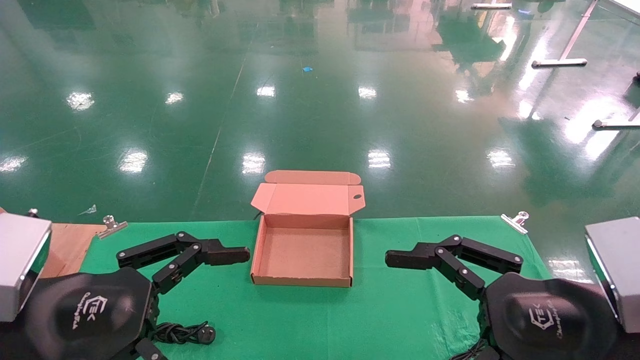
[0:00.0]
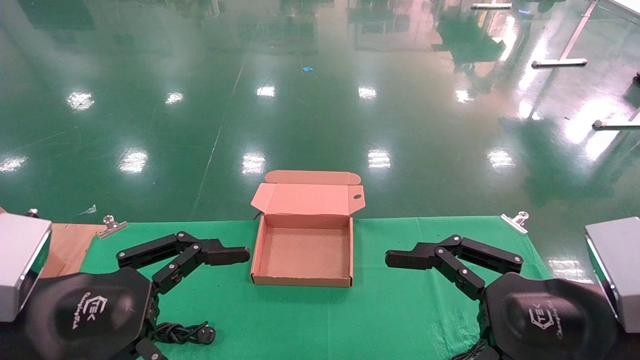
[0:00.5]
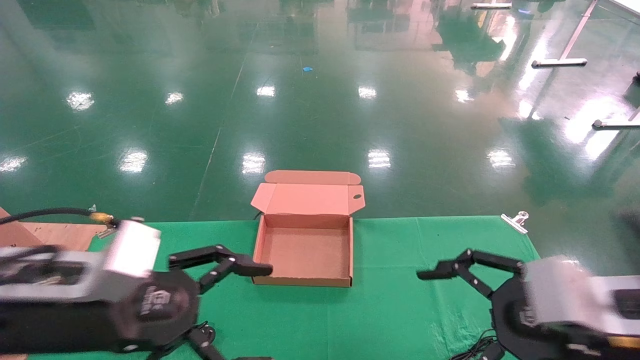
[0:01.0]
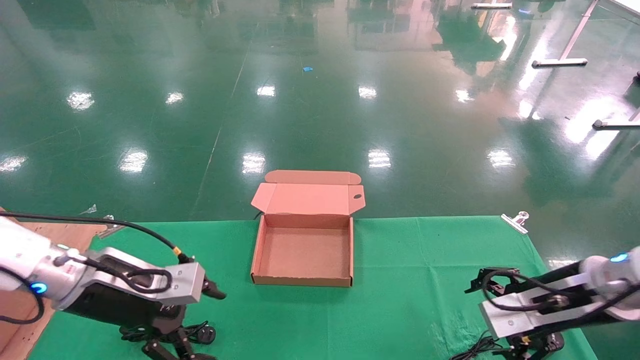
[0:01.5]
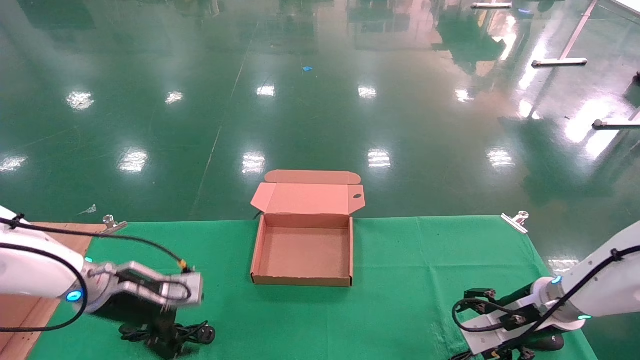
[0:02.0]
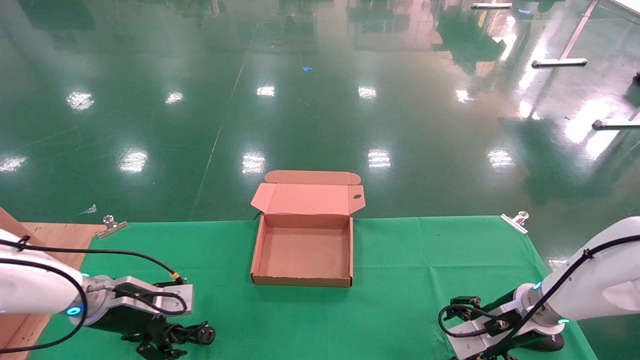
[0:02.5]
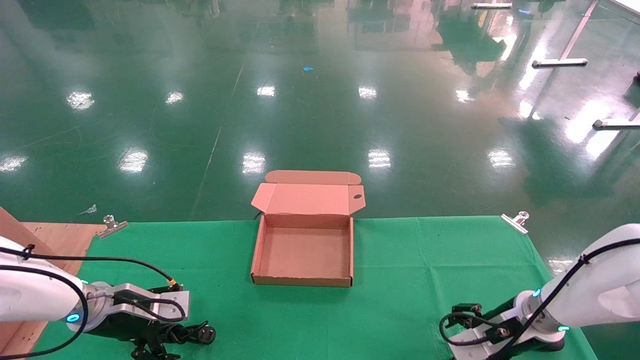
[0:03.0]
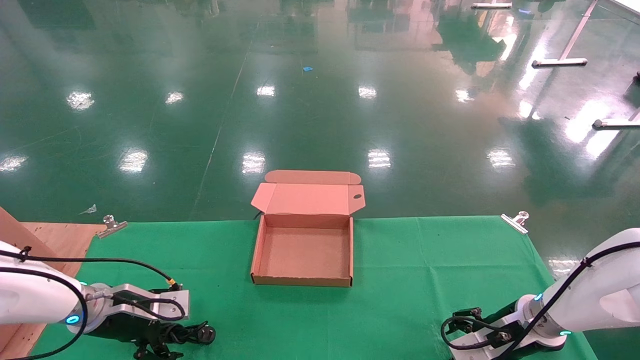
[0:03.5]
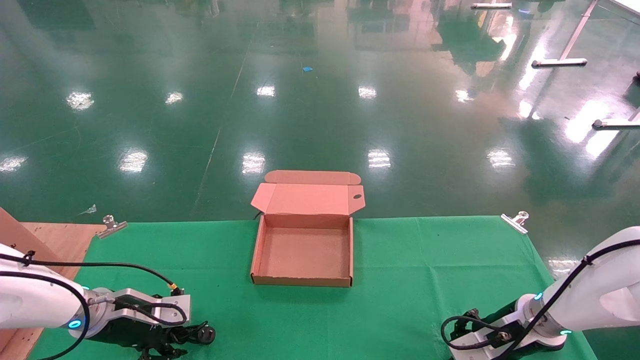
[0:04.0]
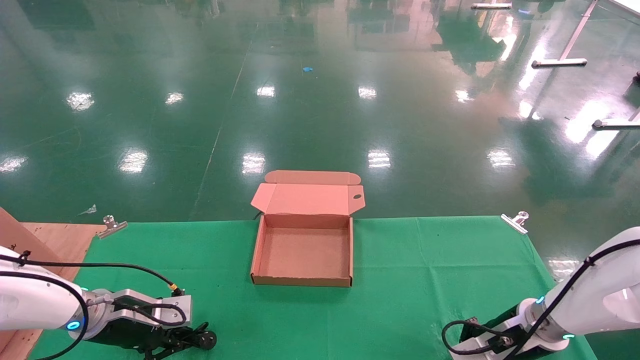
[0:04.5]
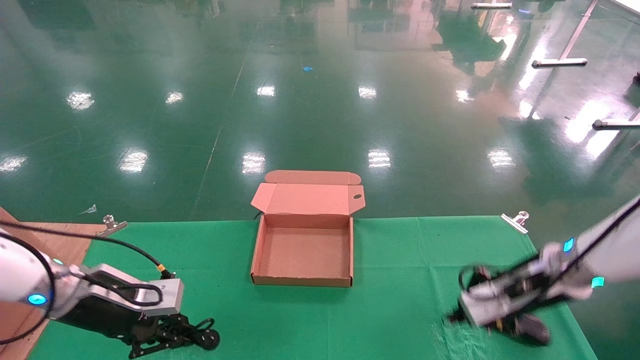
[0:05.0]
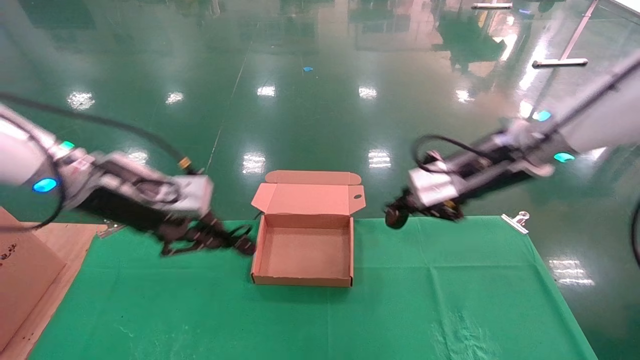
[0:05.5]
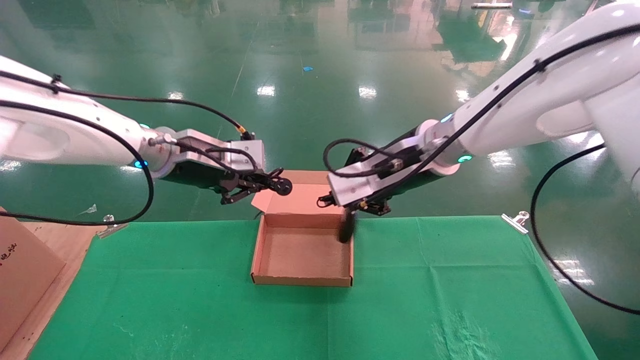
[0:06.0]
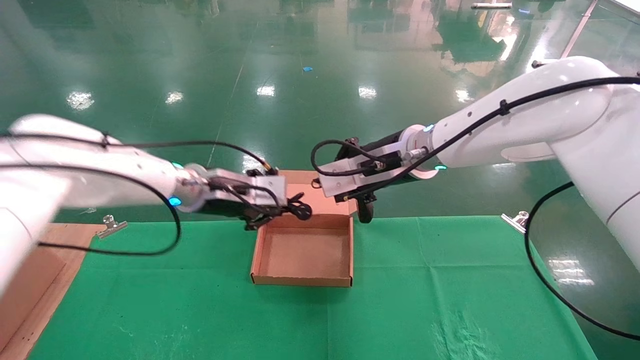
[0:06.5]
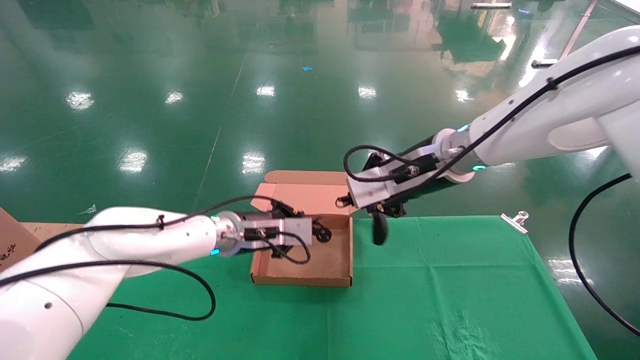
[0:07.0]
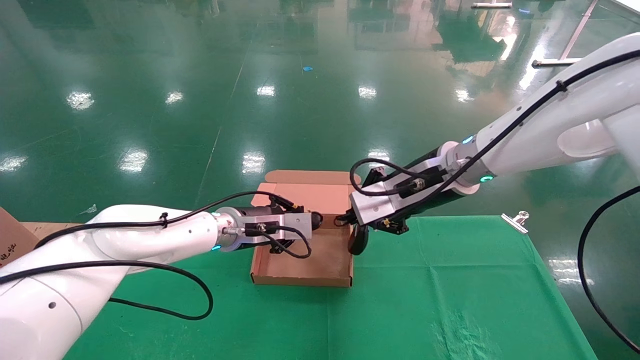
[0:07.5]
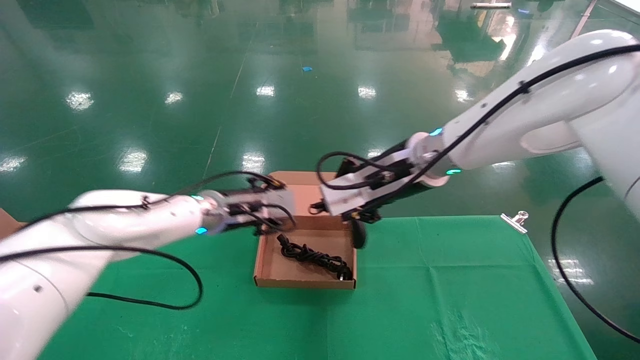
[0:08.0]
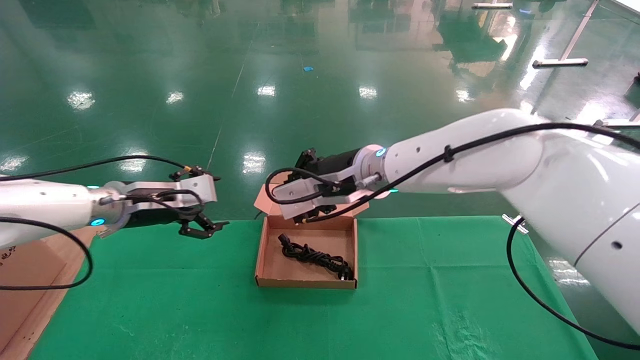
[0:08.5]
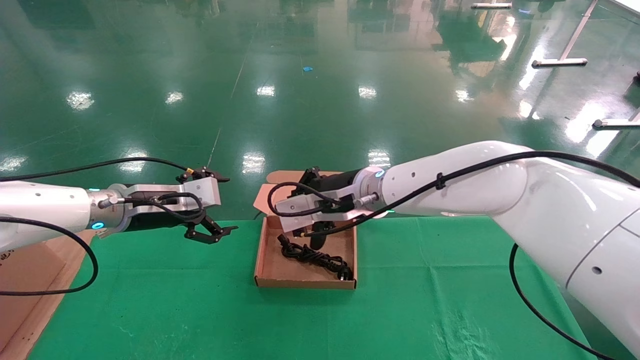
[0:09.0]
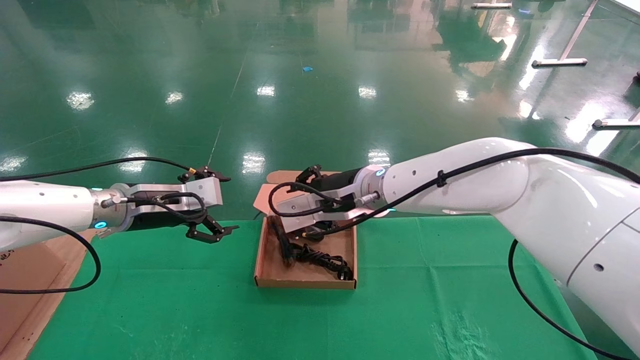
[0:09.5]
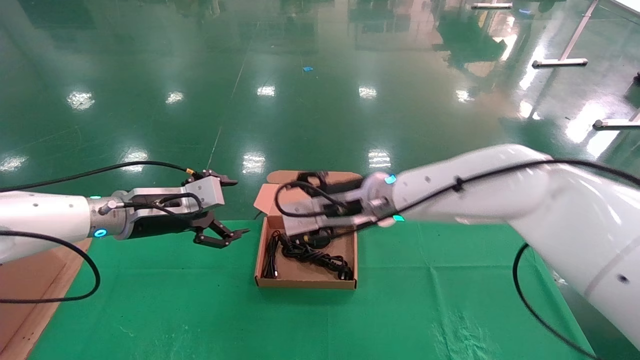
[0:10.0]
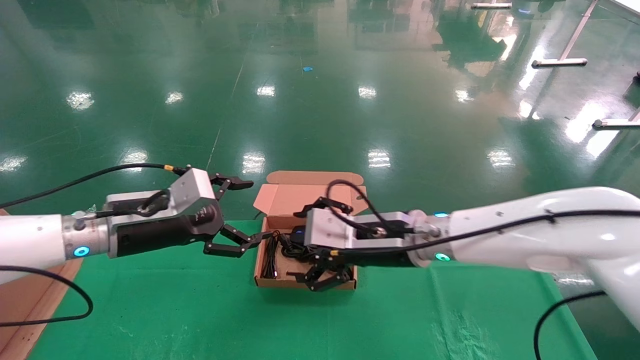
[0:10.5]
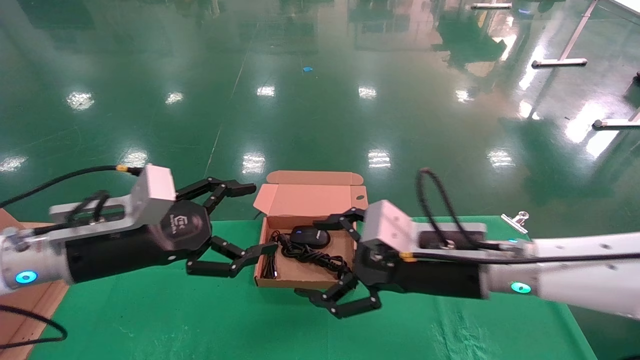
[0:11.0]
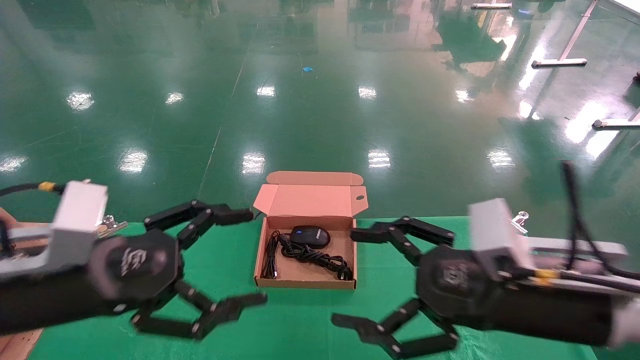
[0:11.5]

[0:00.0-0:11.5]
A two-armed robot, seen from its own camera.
Step, 1.5 to 4.5 s: Grab and lift both the mouse and power cord from the accessory packaging area at the same time.
Step, 5.0 to 10.0 s: Place the mouse and power cord into the box.
0.0 to 2.0 s: The two grippers go roughly 25 cm forward and downward.
2.0 to 4.0 s: The right gripper closes up. Meanwhile the left gripper shifts approximately 5 cm downward, and closes its fingers.
4.0 to 6.0 s: The right gripper is displaced upward and to the left by roughly 30 cm, and closes its fingers, while the left gripper goes approximately 25 cm upward and to the right, and closes.
6.0 to 7.5 s: The left gripper goes approximately 15 cm downward and to the right.
7.5 to 9.5 s: Both grippers move to the left, about 10 cm. The left gripper opens its fingers.
9.5 to 11.5 s: The right gripper goes approximately 25 cm backward and to the right, and opens up; the left gripper travels backward by roughly 20 cm.

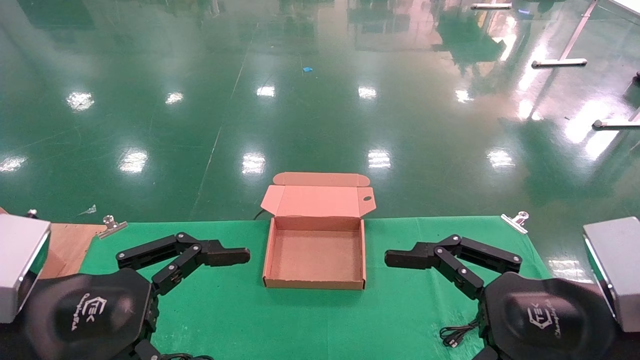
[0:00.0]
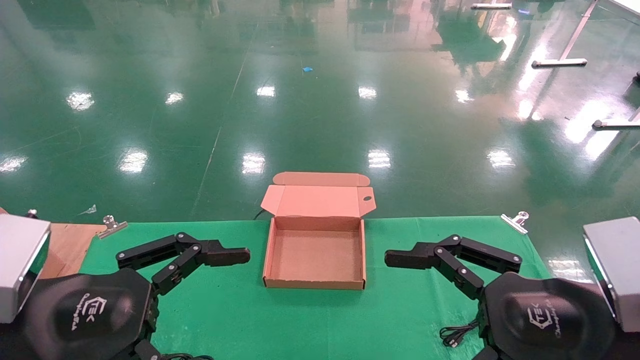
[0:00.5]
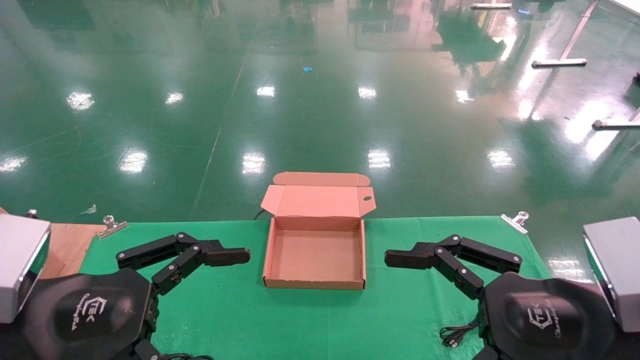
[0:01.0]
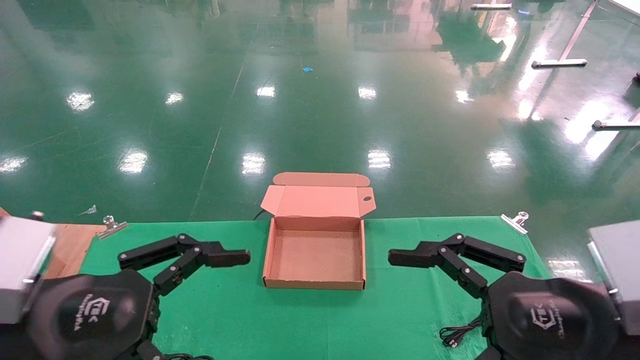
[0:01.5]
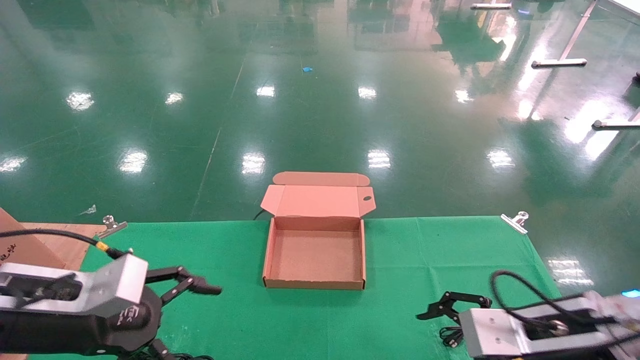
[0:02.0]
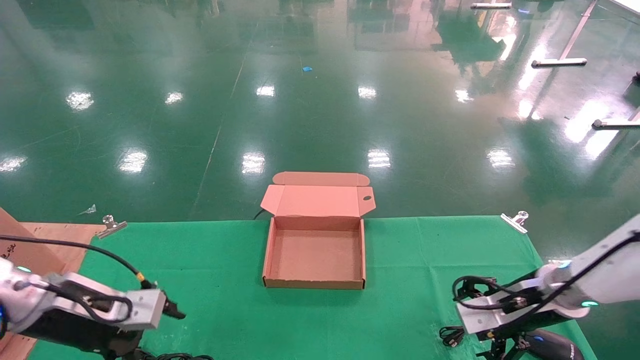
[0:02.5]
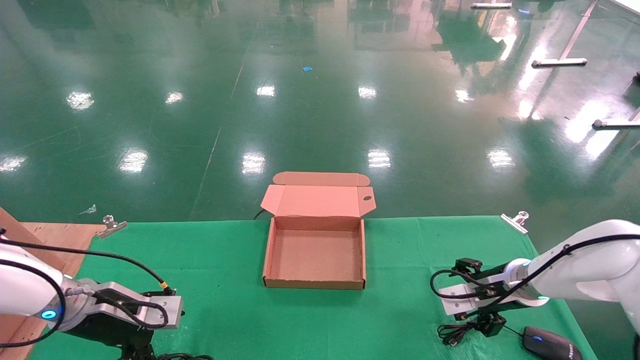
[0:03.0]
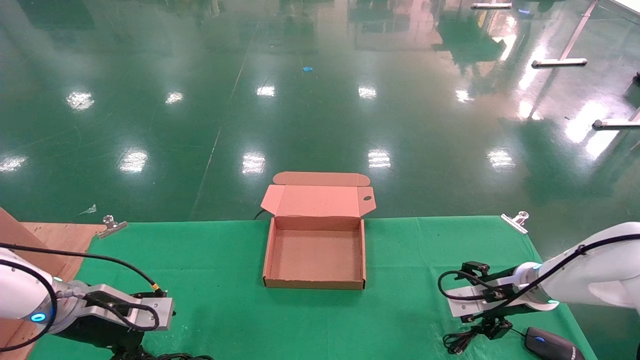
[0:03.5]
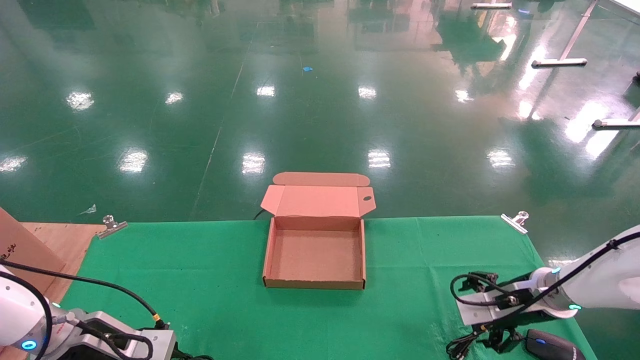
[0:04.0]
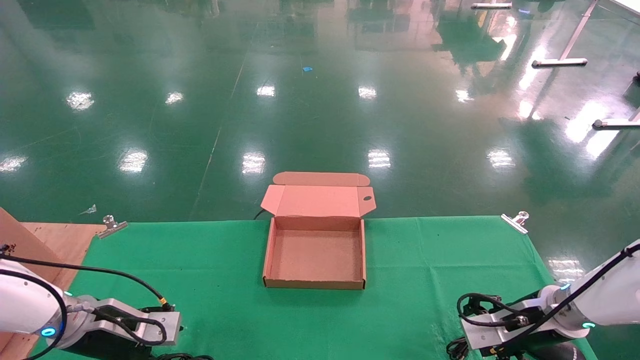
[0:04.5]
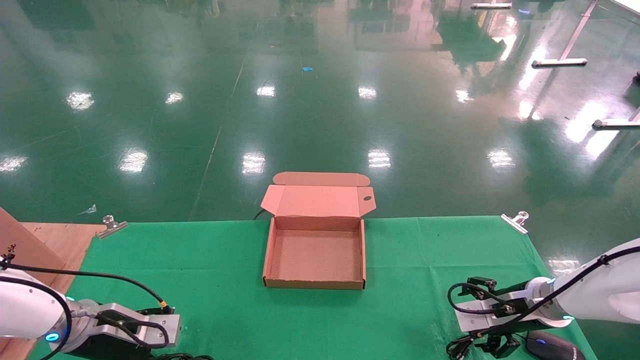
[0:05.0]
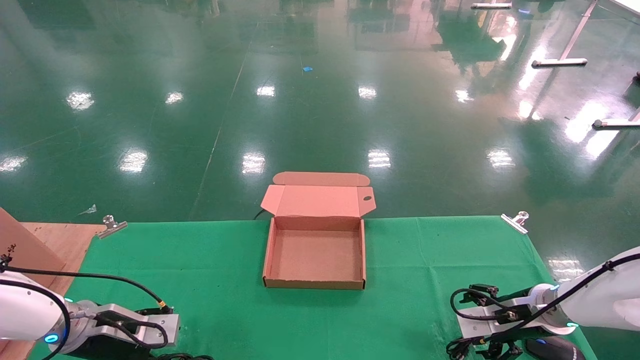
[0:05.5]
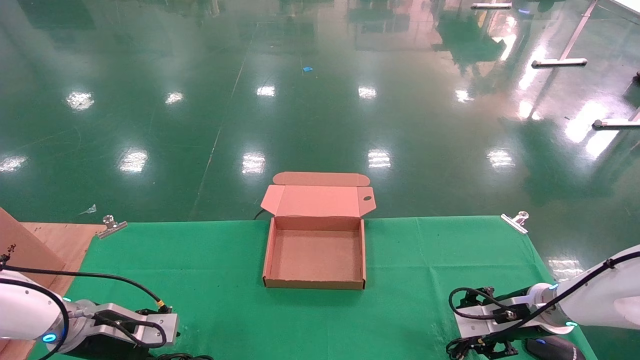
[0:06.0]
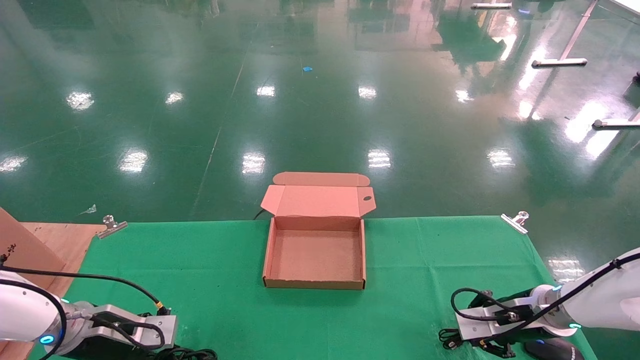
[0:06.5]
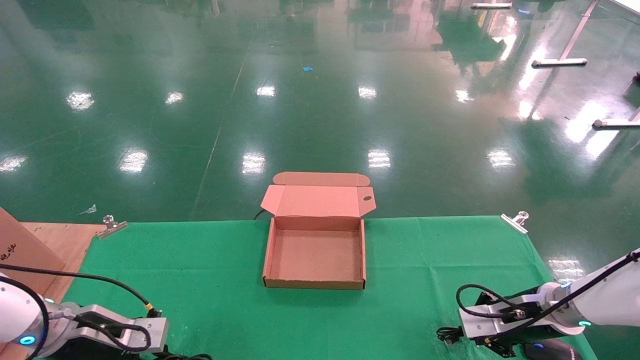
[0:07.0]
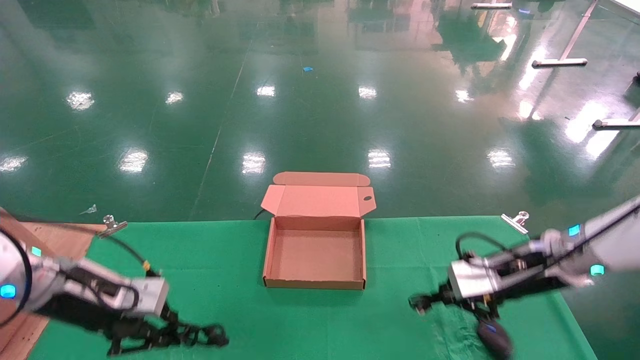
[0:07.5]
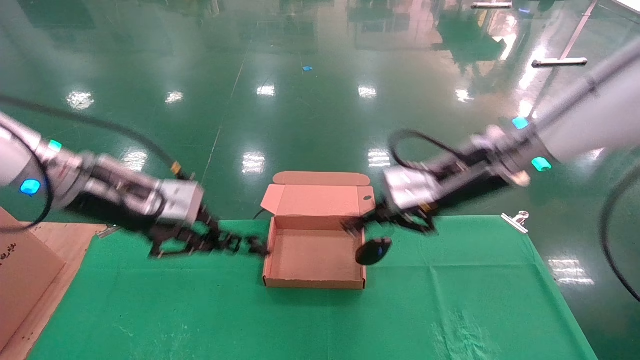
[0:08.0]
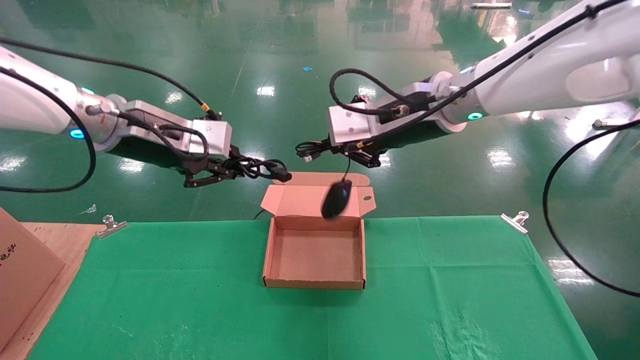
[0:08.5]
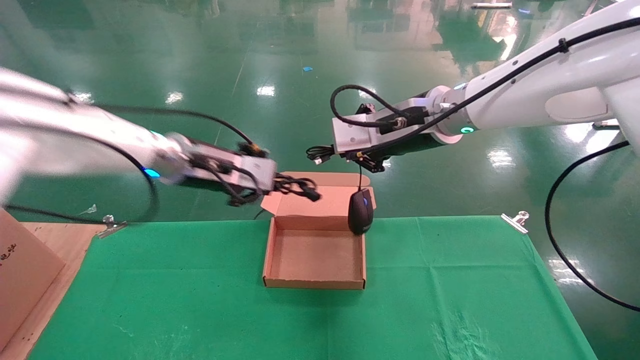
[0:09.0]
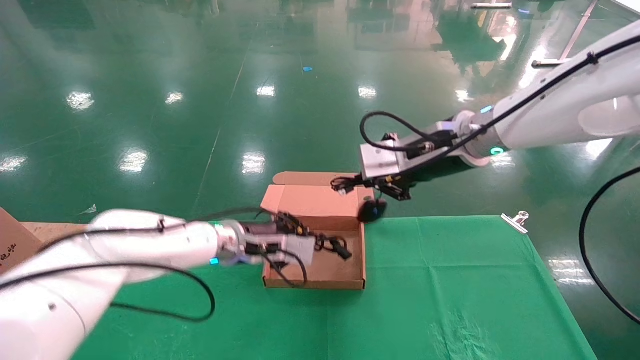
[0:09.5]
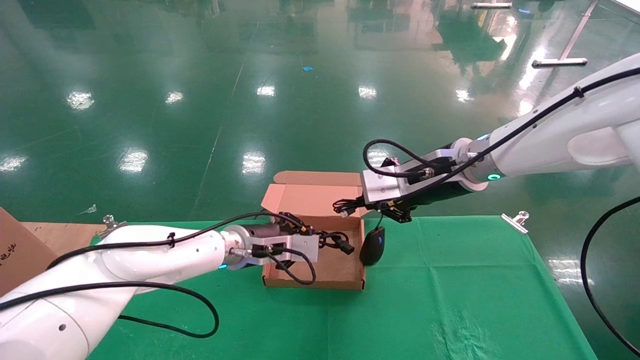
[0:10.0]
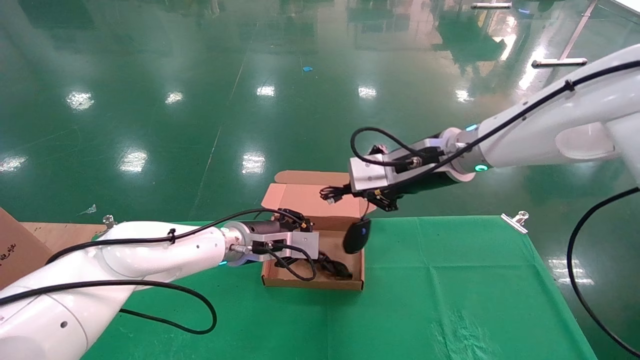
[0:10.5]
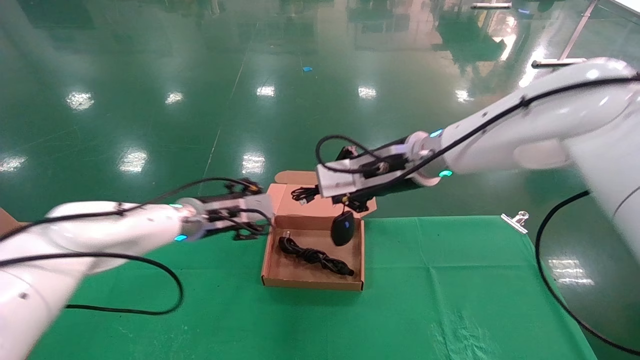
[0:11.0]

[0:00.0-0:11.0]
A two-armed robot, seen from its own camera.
Step, 2.5 to 7.0 s: Grab and lift both the mouse and power cord from the accessory packaging area at the same time.
0.0 to 2.0 s: The left gripper travels forward by about 10 cm, while the right gripper is displaced forward and downward by roughly 15 cm.
2.0 to 3.5 s: The two grippers go roughly 15 cm forward and downward.
3.5 to 5.5 s: The grippers move only a little.
5.5 to 7.5 s: Both grippers move upward, approximately 10 cm. The right gripper closes its fingers. The left gripper closes its fingers.
7.5 to 9.0 s: The left gripper moves to the right, upward and forward, about 20 cm. Meanwhile the right gripper shifts some 25 cm upward and to the left.
9.0 to 11.0 s: The right gripper heads downward, covering some 5 cm. The left gripper shifts roughly 10 cm downward, and opens its fingers.
